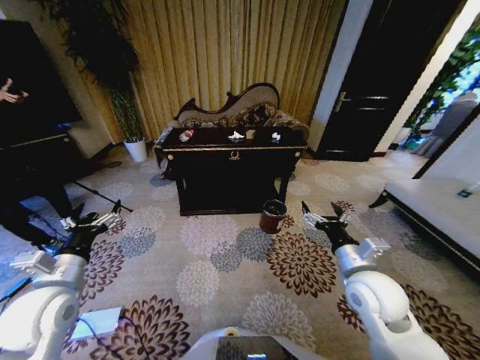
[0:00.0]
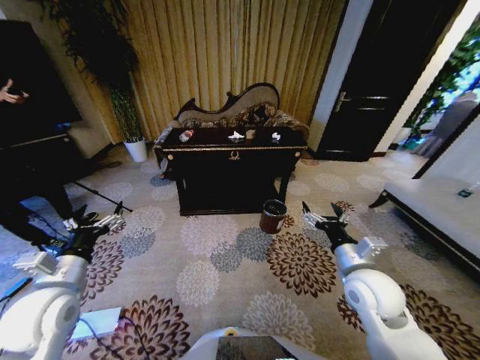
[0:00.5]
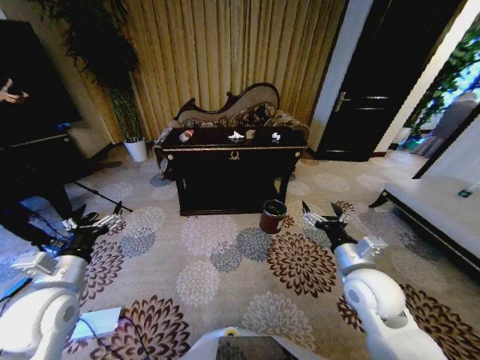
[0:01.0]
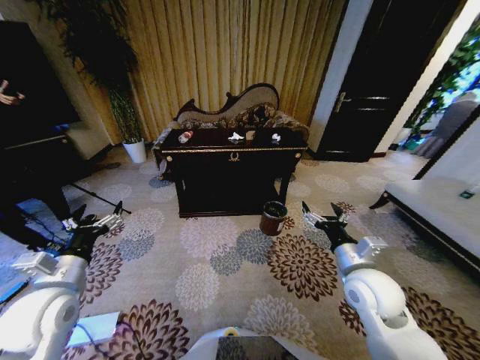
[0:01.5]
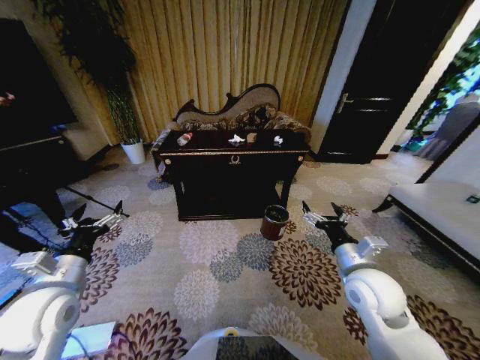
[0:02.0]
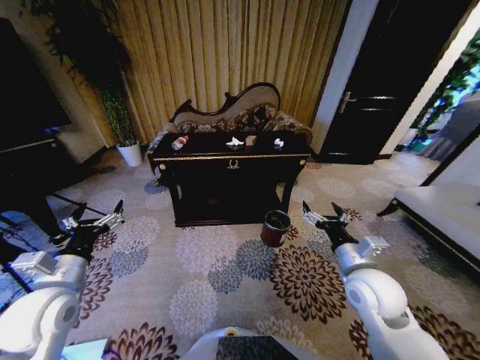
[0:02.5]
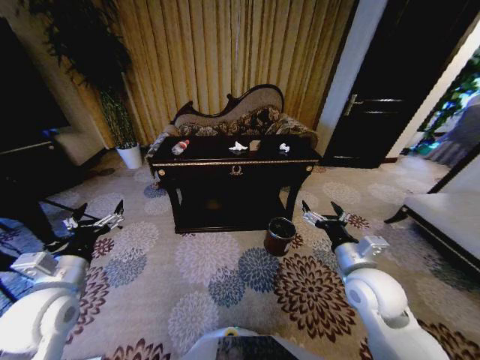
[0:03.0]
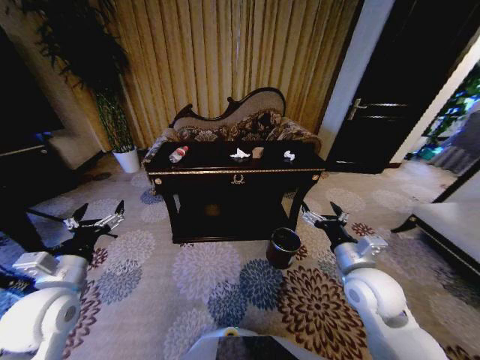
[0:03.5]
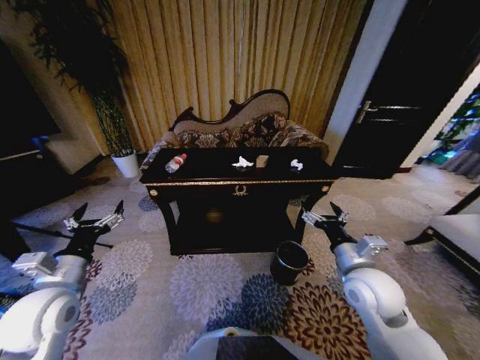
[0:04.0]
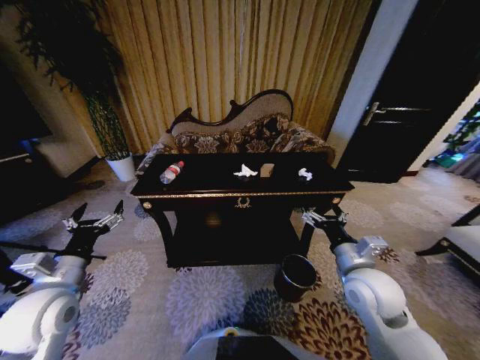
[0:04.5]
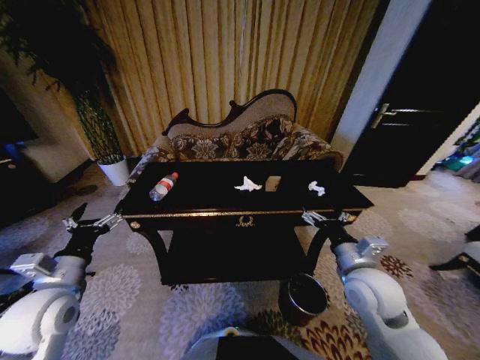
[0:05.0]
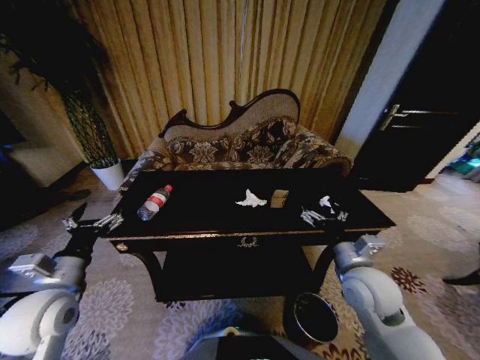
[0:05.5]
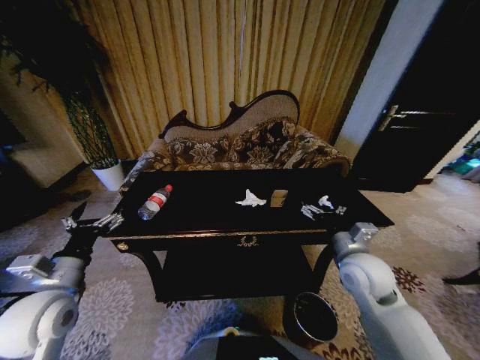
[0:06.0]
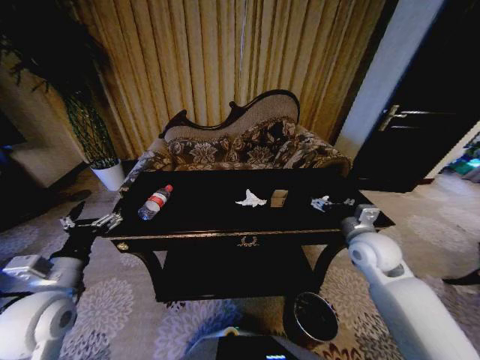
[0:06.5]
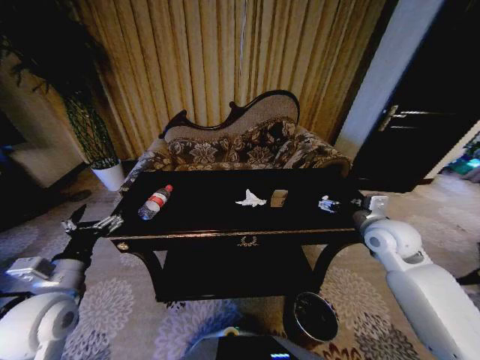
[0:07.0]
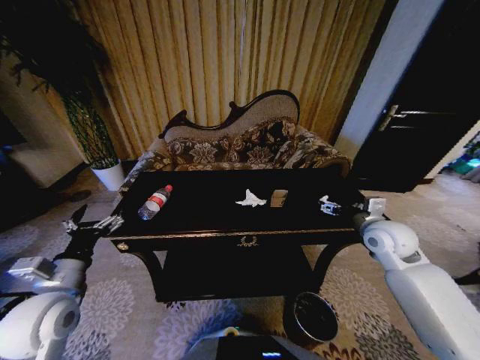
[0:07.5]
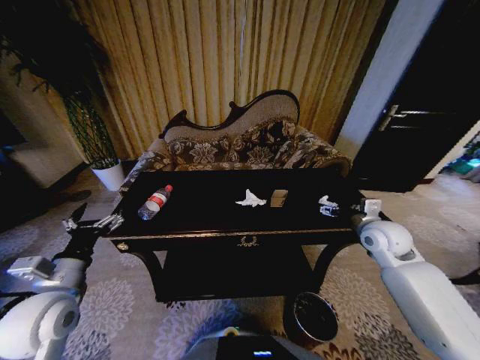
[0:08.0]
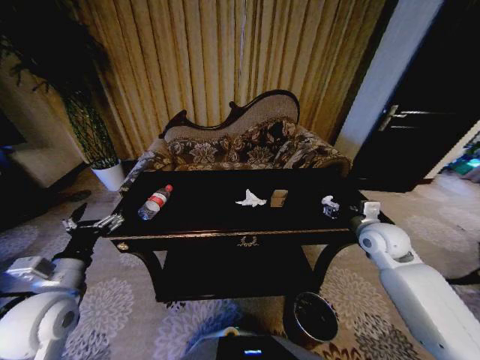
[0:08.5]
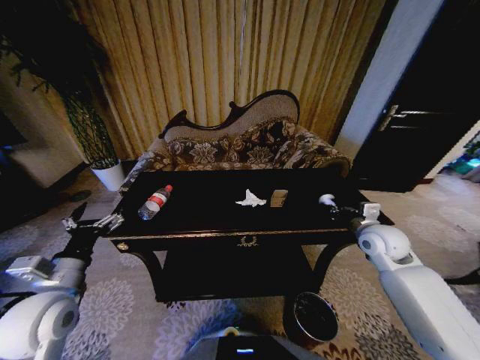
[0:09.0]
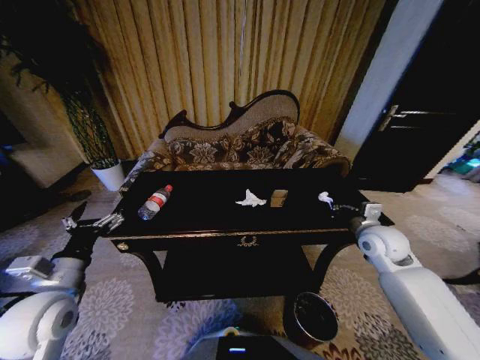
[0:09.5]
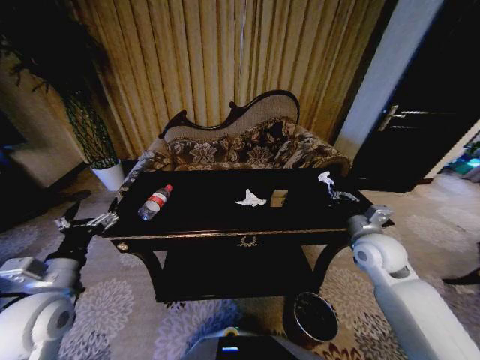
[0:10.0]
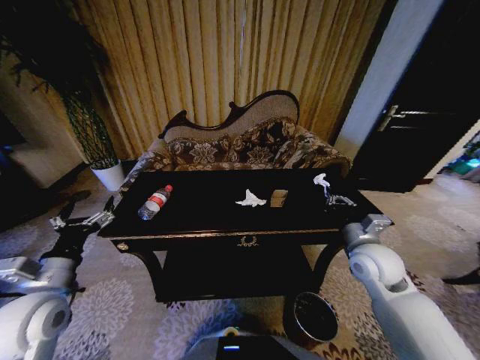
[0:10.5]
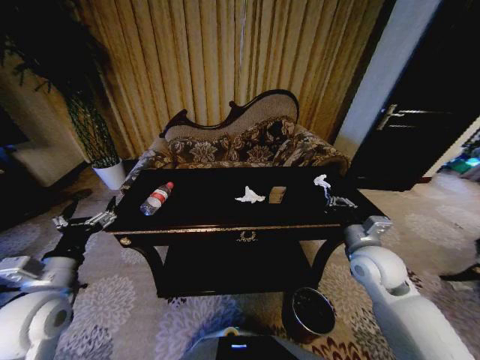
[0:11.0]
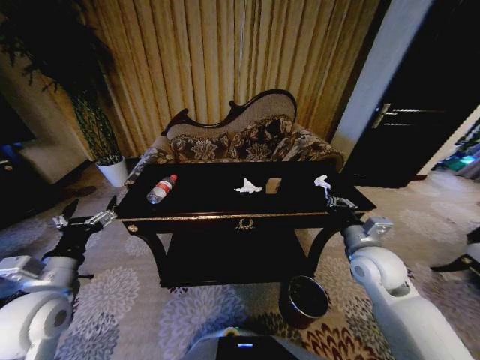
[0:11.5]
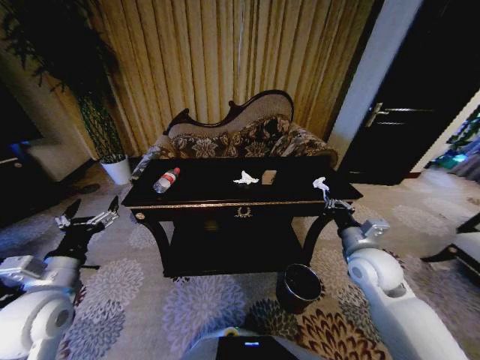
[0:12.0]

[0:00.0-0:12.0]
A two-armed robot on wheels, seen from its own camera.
Task of the whole recording: Move to the front of the table and place the trash on the table into the trash bin.
0:06.0 to 0:08.0: The right gripper travels to the right and forward by approximately 15 cm.
0:08.0 to 0:10.0: The right gripper shifts by roughly 5 cm, and closes up.

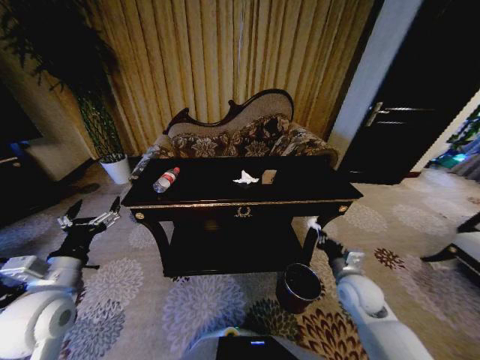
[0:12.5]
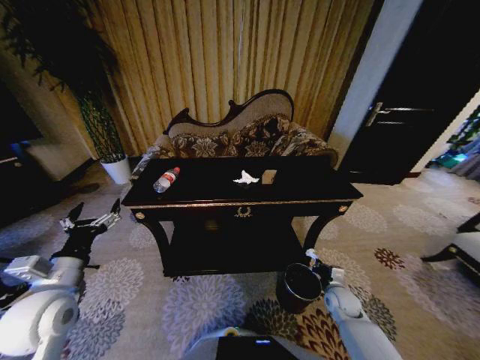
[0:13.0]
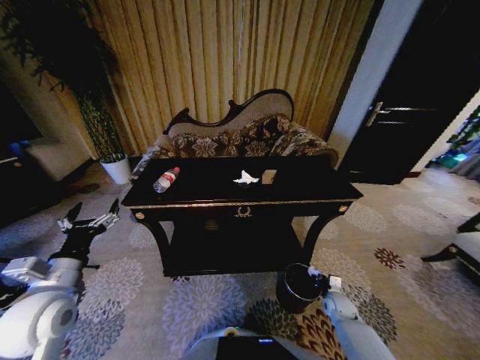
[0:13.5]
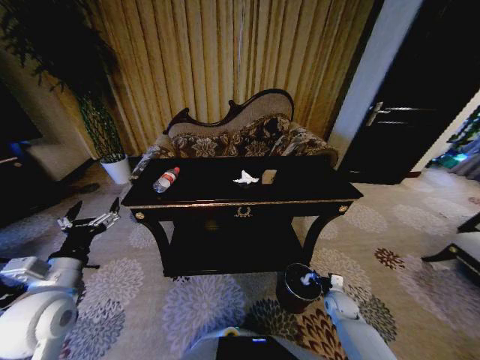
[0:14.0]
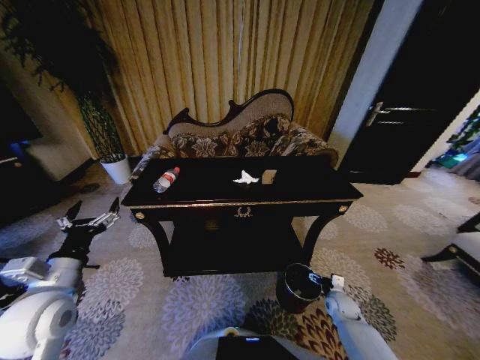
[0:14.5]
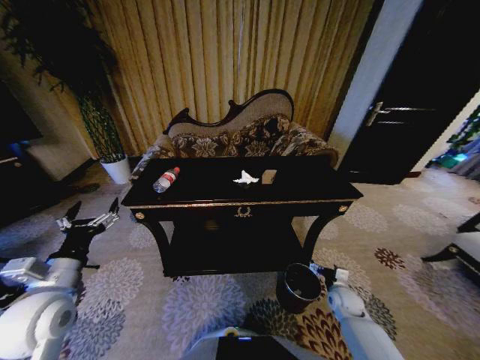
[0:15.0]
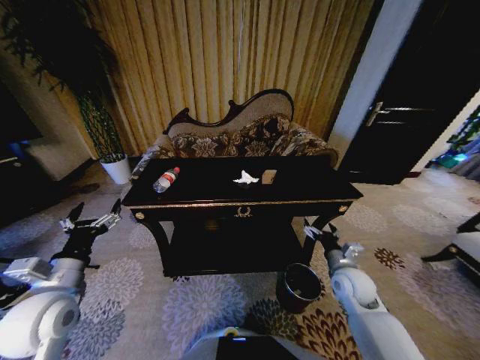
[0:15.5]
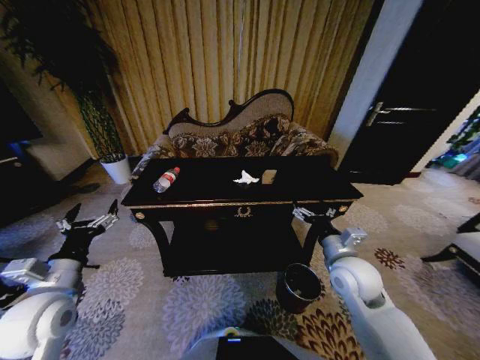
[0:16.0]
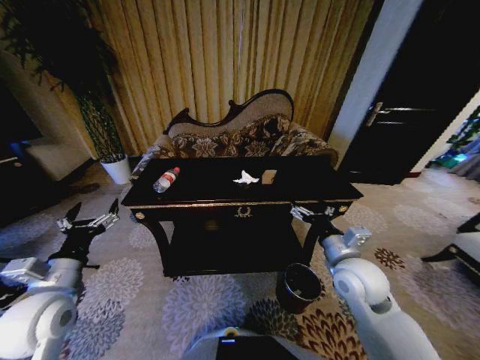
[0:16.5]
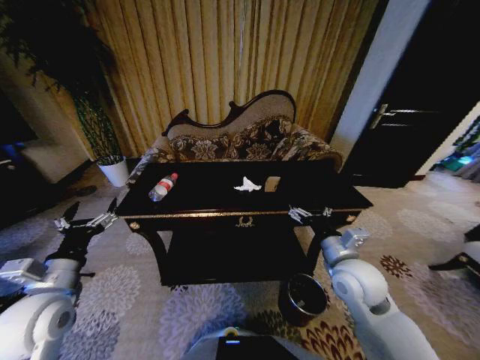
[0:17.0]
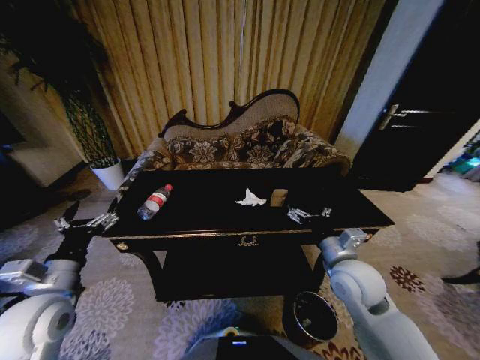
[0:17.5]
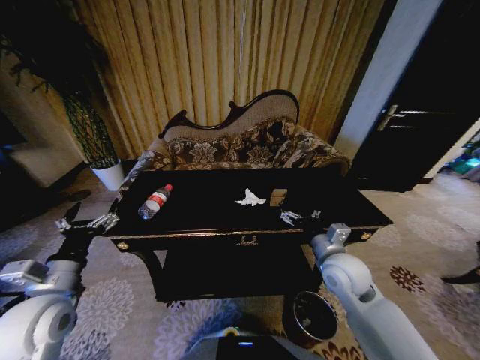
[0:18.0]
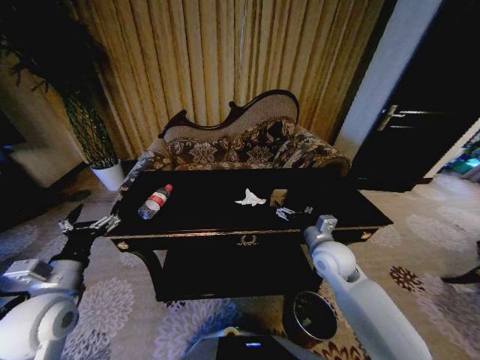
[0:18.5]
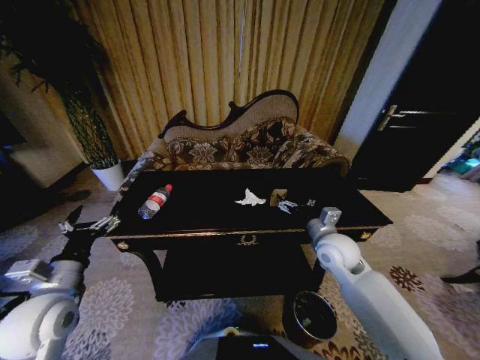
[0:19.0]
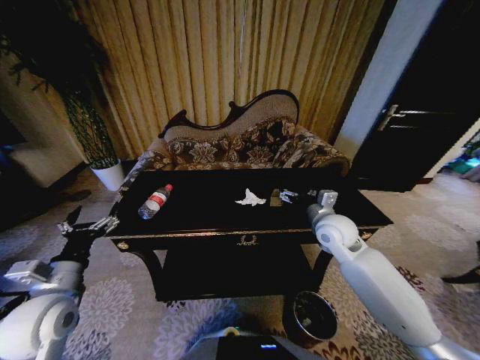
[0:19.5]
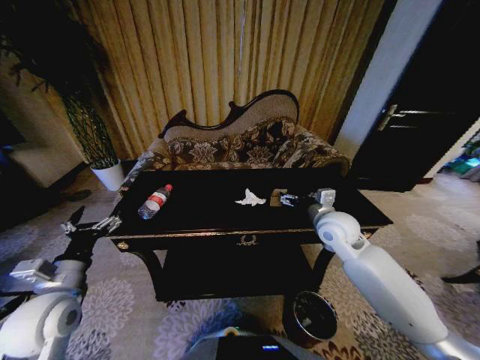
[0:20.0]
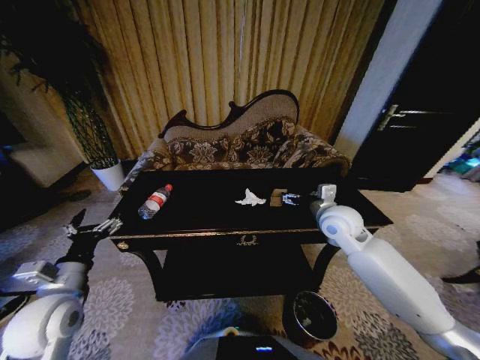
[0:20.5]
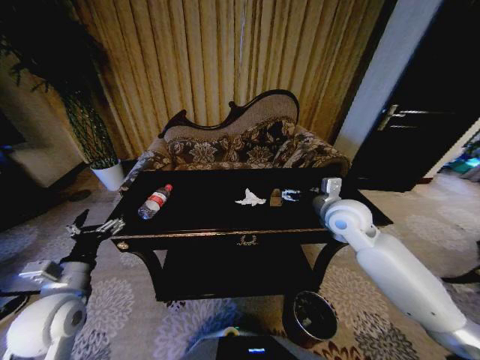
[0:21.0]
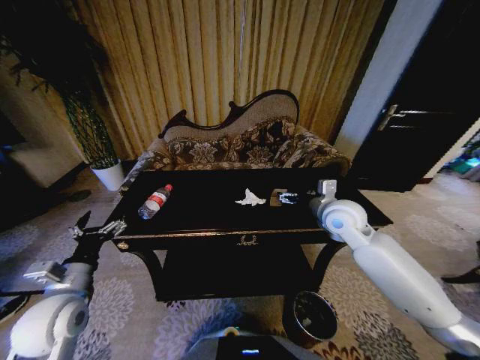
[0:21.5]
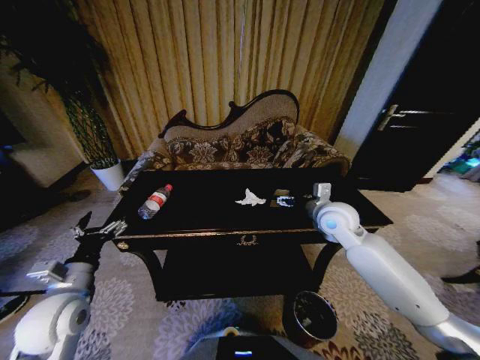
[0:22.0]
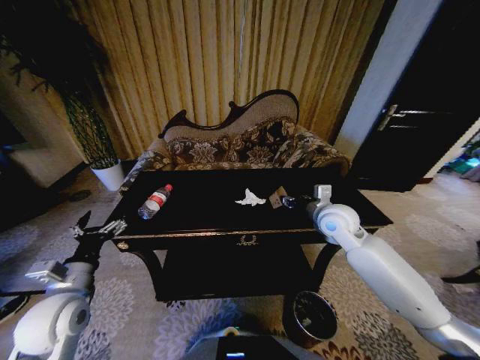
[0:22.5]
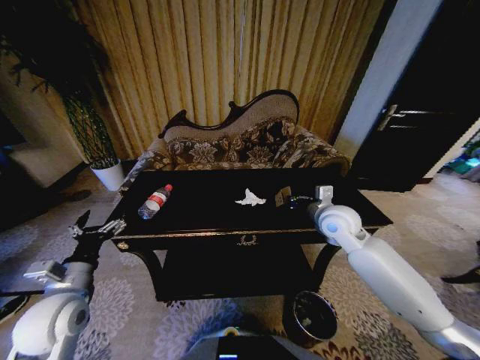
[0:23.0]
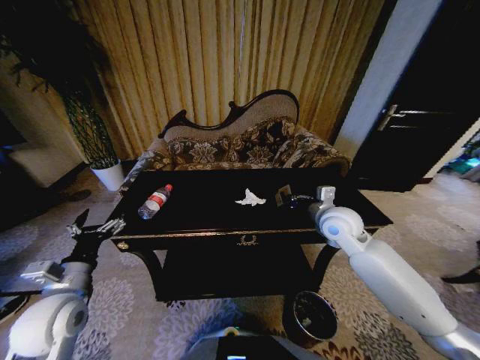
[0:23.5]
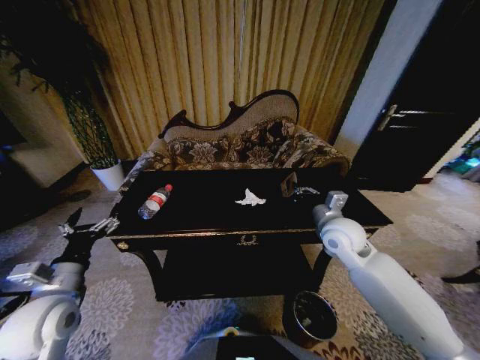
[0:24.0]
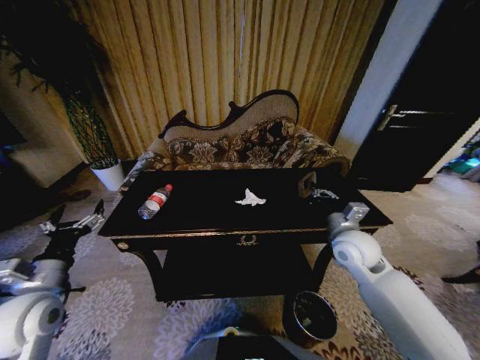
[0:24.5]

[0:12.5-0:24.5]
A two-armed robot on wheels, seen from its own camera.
Task of the whole recording: Move to the front of the table and place the trash on the table into the trash bin.
0:12.5 to 0:14.5: The right gripper shifts some 20 cm downward, and opens.
0:14.5 to 0:16.5: The right gripper heads upward and to the left, covering about 35 cm.
0:16.5 to 0:18.5: The right gripper heads forward, covering about 5 cm.
0:18.5 to 0:20.5: The right gripper moves upward and forward, some 10 cm.
0:20.5 to 0:22.5: The right gripper closes its fingers.
0:22.5 to 0:24.5: The right gripper travels backward by some 5 cm, and closes its fingers.

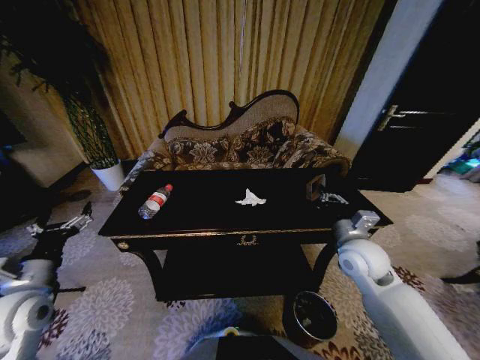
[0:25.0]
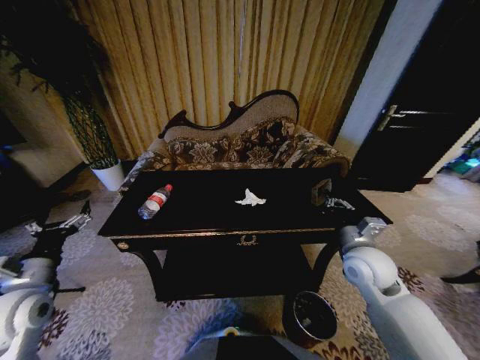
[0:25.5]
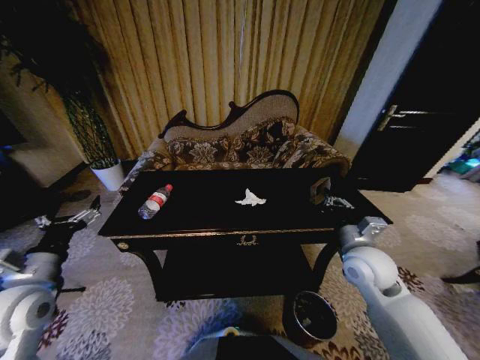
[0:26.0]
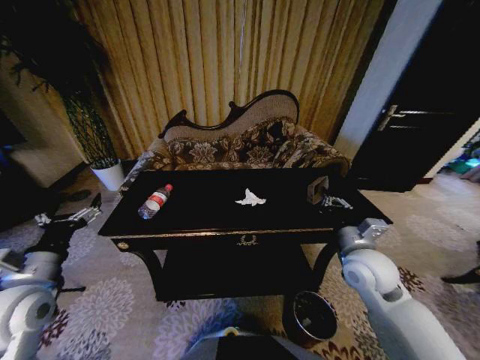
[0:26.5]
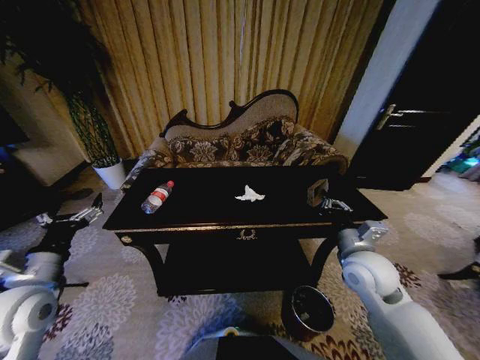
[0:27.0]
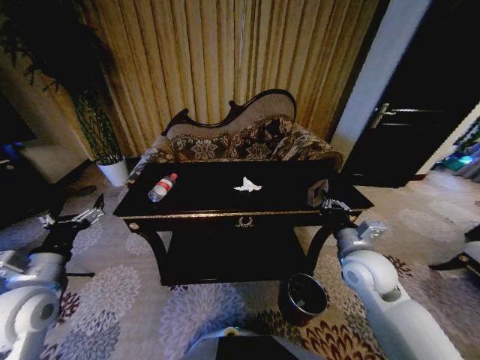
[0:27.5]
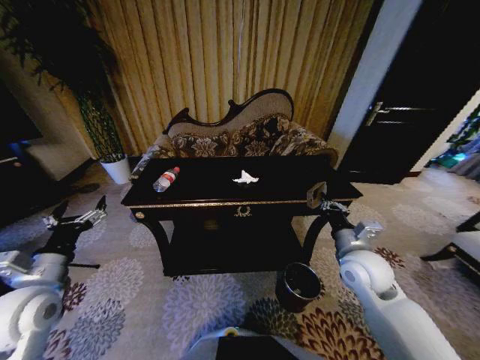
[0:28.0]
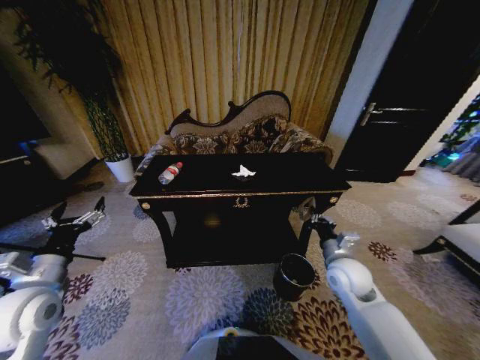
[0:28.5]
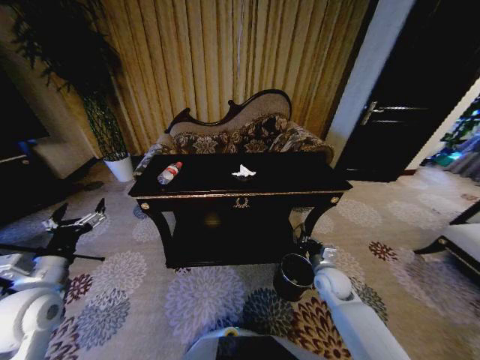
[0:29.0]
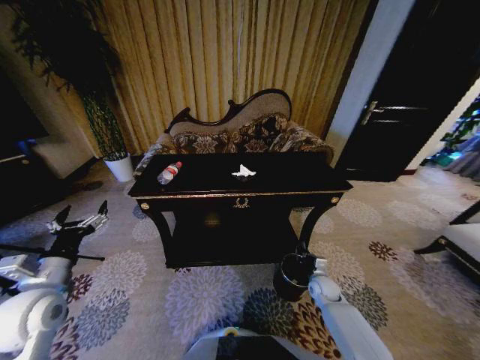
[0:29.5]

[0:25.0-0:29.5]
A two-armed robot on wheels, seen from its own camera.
Task of the whole recording: Move to the front of the table and place the trash on the table into the trash bin.
0:25.0 to 0:27.0: The grippers stay close to where they were, moving slightly.
0:27.0 to 0:29.5: The right gripper is displaced downward by some 30 cm.
